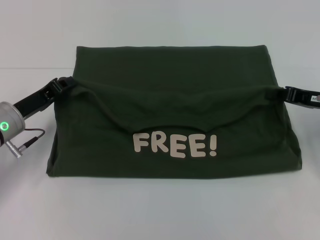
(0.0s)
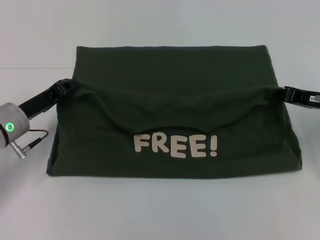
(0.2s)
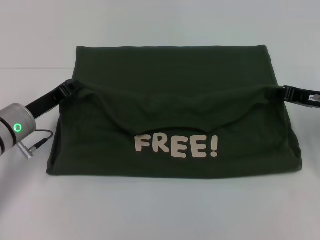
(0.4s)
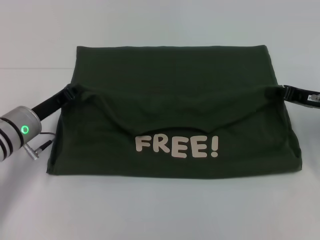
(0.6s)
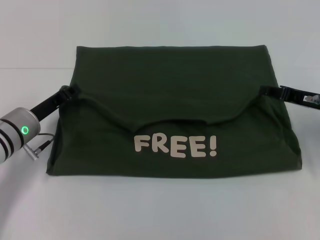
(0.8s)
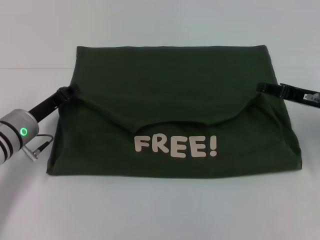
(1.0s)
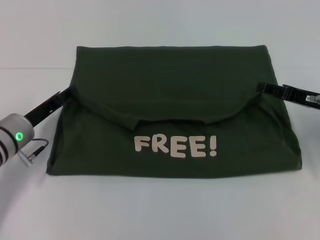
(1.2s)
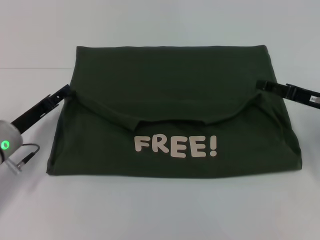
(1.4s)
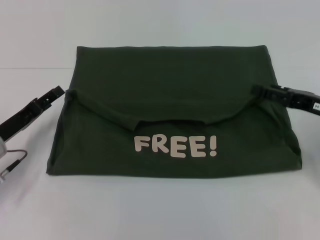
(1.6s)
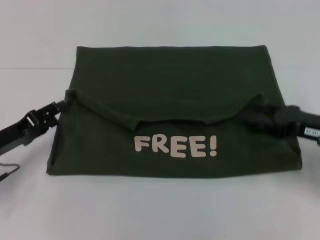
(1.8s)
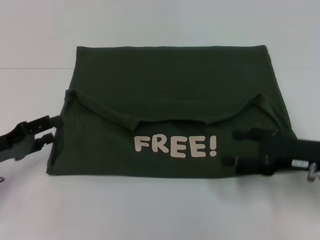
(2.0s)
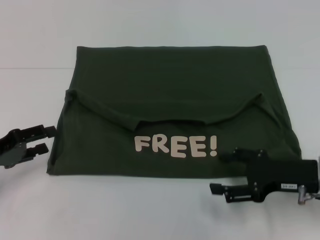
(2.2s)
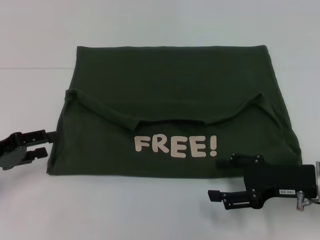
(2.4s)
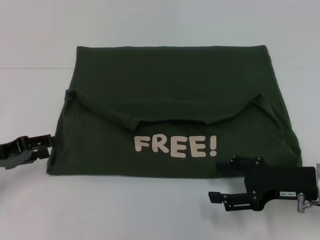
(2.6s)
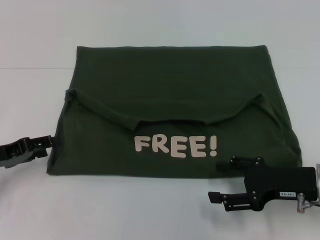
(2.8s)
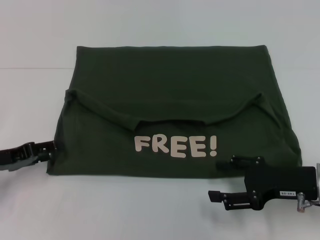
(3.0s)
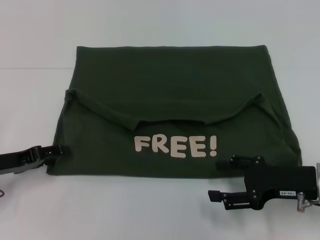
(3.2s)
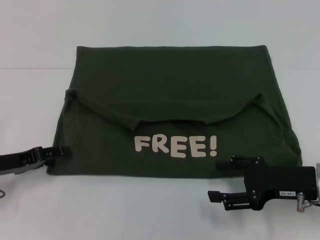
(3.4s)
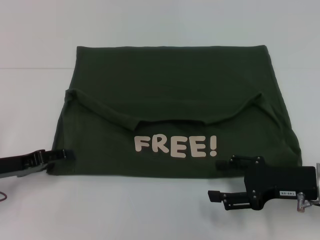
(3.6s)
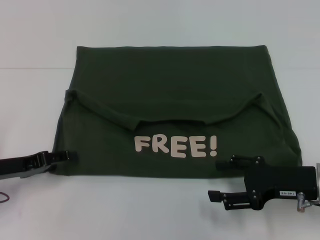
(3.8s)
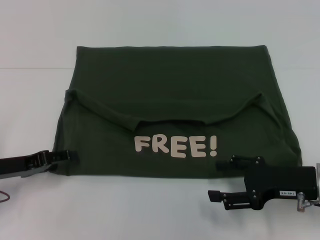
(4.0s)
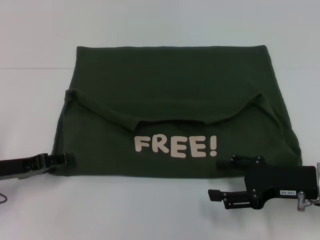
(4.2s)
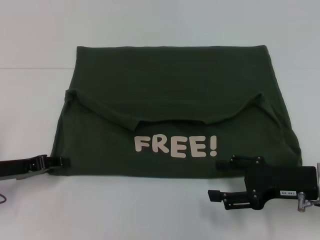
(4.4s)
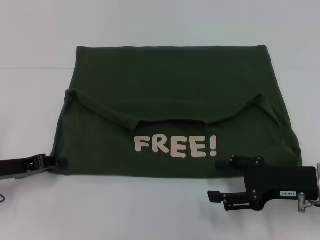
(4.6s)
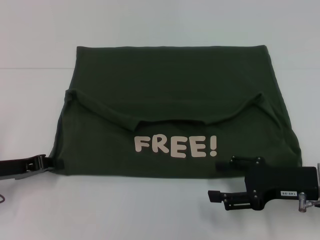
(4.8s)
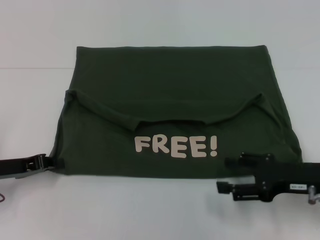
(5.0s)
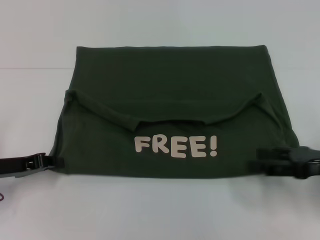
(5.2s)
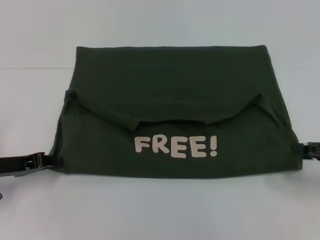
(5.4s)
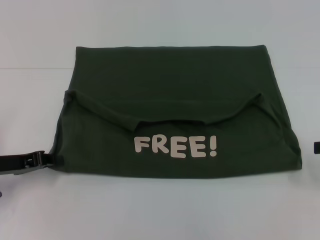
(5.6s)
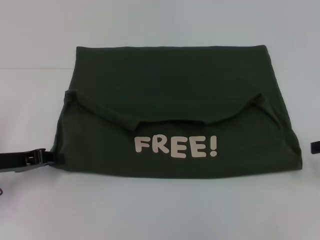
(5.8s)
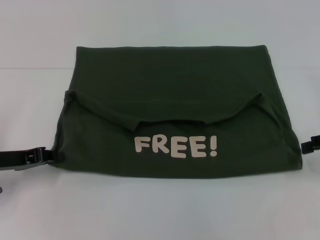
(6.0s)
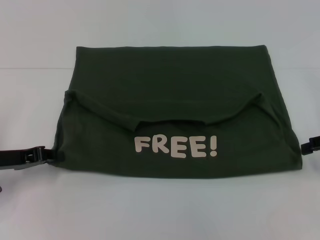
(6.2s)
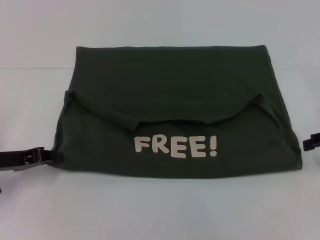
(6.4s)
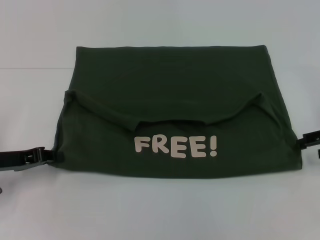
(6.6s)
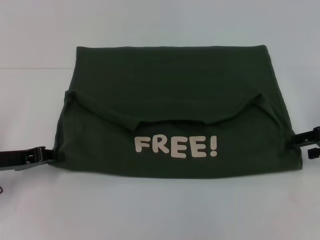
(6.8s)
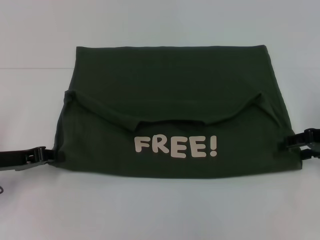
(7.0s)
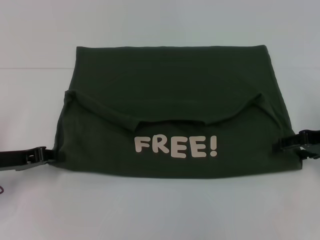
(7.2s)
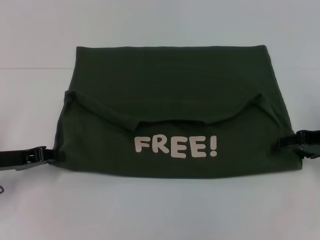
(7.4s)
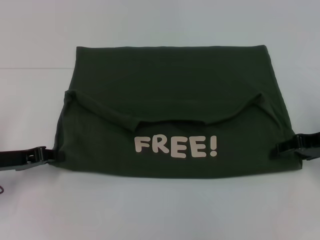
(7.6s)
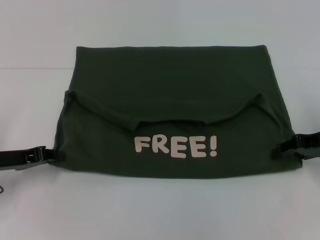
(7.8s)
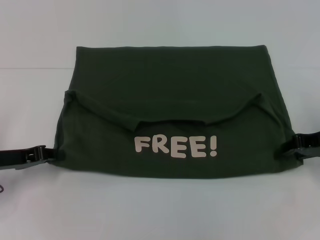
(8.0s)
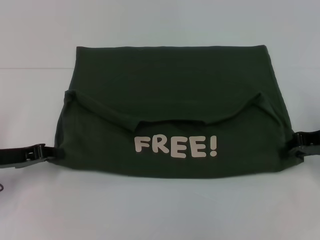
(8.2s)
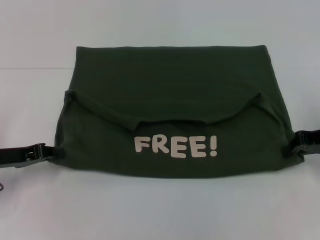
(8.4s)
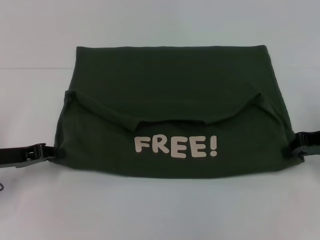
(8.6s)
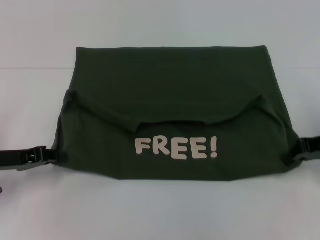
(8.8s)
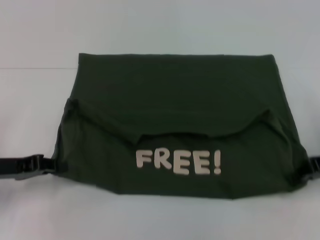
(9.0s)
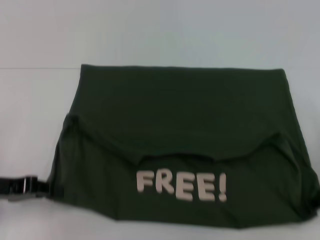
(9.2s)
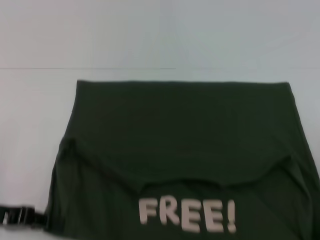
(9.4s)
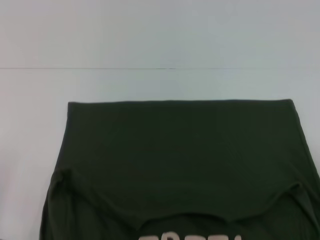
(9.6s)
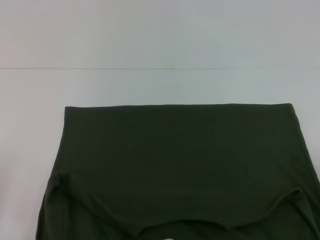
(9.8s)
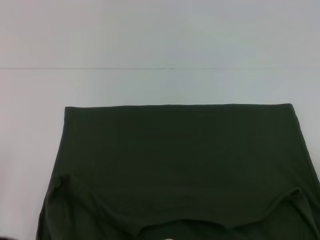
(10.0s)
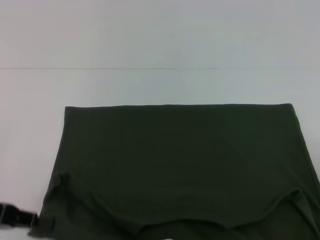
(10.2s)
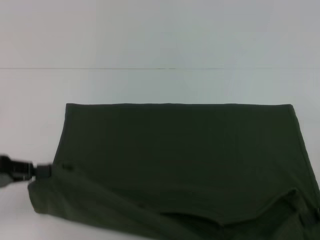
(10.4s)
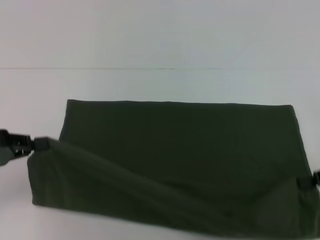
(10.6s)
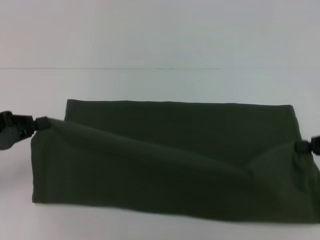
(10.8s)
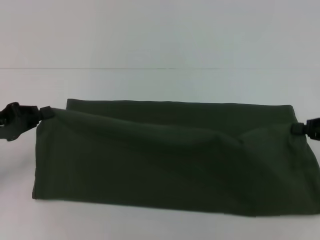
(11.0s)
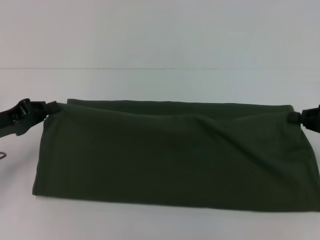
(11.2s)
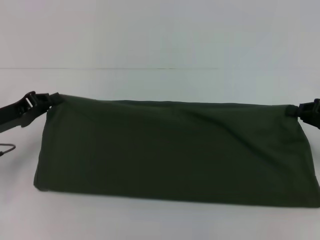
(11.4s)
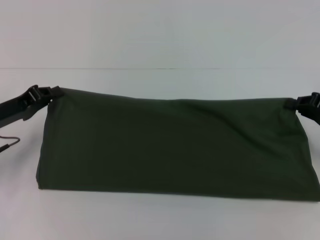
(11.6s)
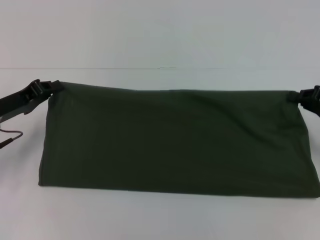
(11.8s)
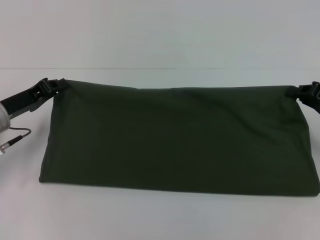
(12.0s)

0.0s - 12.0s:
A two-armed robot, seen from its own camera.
Step, 1.6s - 9.8s: Pull the clothes with your left hand.
Step, 1.6s - 9.8s: Pull the clothes with your right hand.
0.0s - 1.6s: The right gripper opens up; the left gripper opens up.
1.6s - 3.0s: The right gripper heads backward and to the left, covering roughly 10 cm. The left gripper ends up about 5 cm from where it was.
3.0s - 4.4s: The grippers make only small movements.
4.4s - 6.0s: The left gripper closes; the right gripper is displaced to the right, upward and forward by some 15 cm.
6.0s - 7.6s: The right gripper travels to the left by roughly 5 cm.
7.6s - 9.0s: The right gripper closes up.
9.0s - 10.4s: The right gripper heads backward, covering about 5 cm, while the left gripper shifts by about 5 cm.
10.4s - 12.0s: The left gripper is displaced forward and to the right by some 10 cm, while the right gripper goes some 10 cm forward.

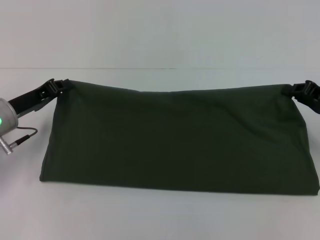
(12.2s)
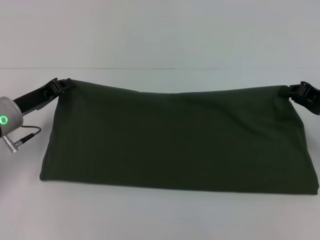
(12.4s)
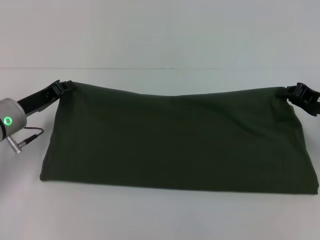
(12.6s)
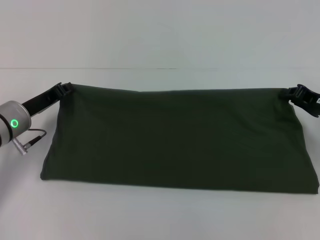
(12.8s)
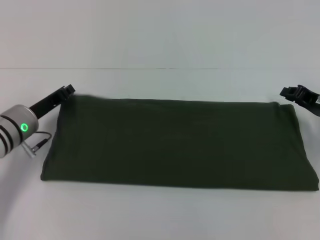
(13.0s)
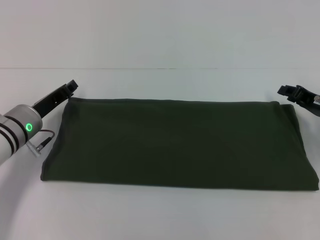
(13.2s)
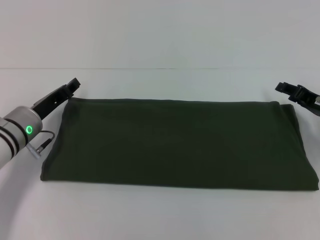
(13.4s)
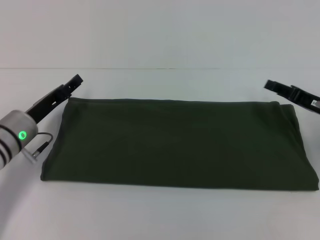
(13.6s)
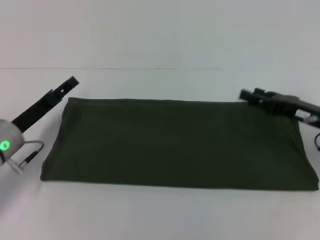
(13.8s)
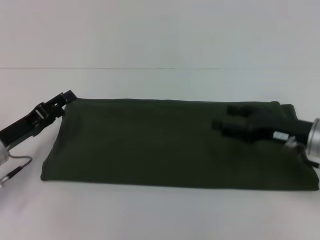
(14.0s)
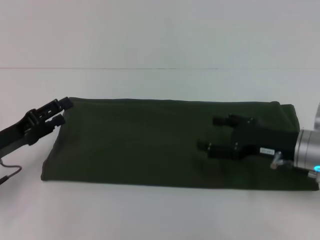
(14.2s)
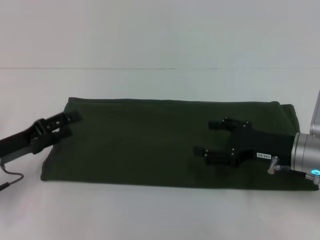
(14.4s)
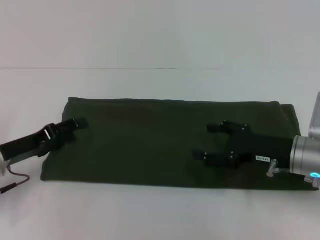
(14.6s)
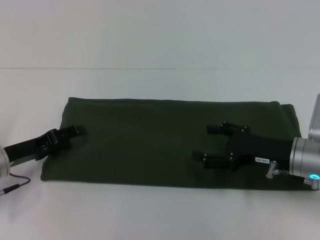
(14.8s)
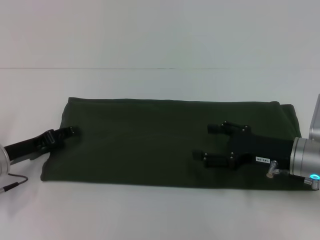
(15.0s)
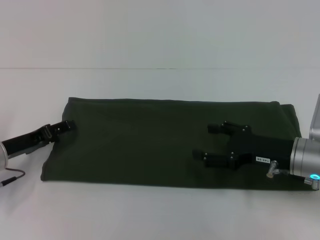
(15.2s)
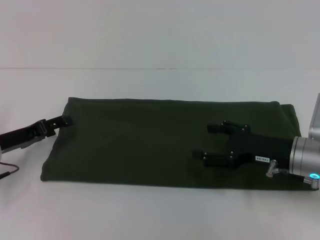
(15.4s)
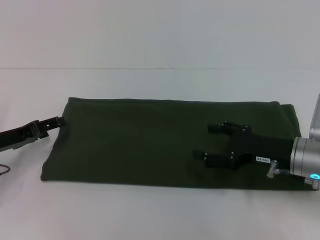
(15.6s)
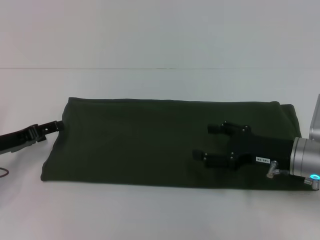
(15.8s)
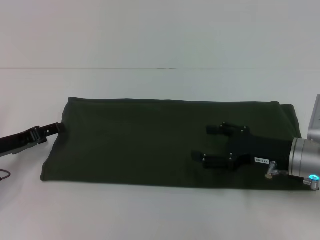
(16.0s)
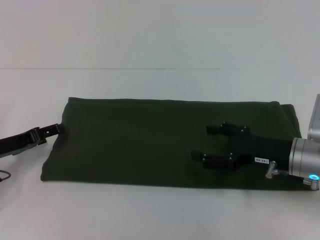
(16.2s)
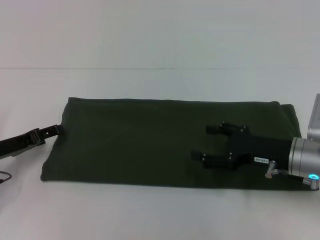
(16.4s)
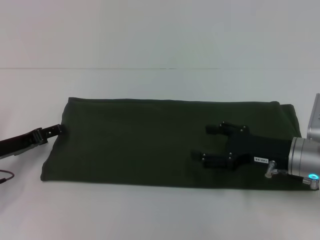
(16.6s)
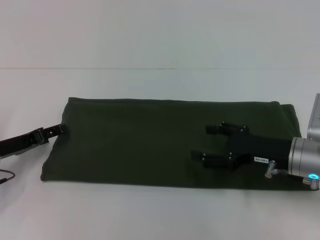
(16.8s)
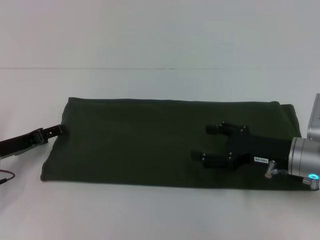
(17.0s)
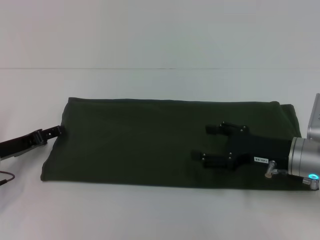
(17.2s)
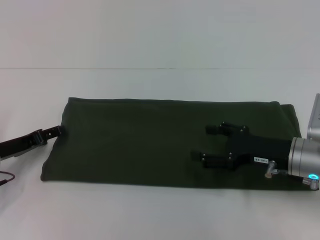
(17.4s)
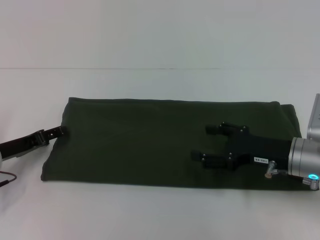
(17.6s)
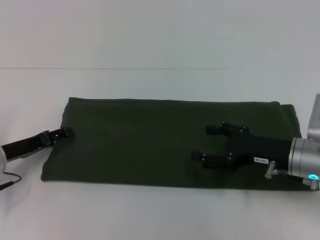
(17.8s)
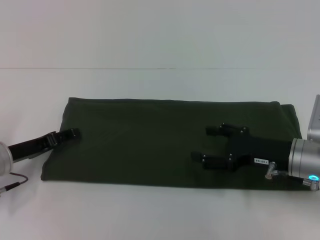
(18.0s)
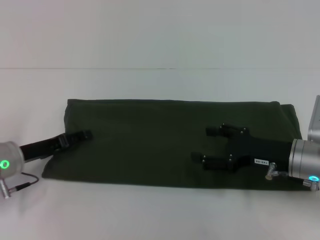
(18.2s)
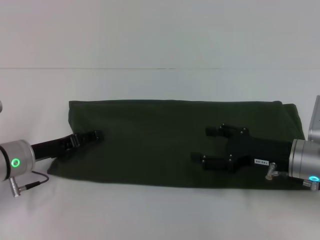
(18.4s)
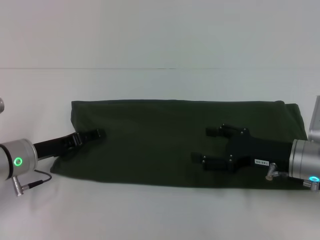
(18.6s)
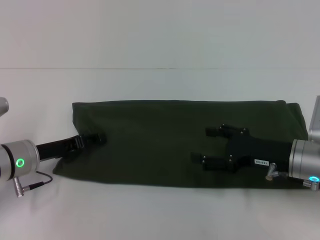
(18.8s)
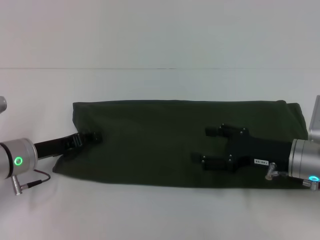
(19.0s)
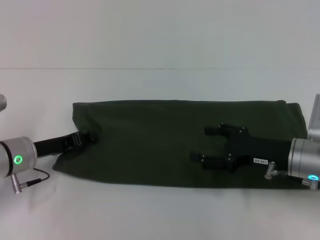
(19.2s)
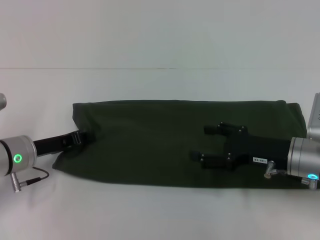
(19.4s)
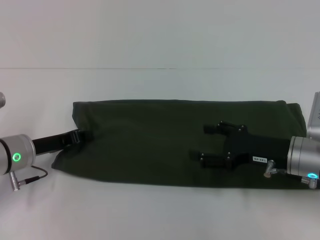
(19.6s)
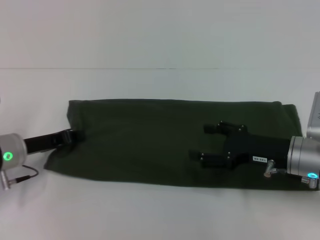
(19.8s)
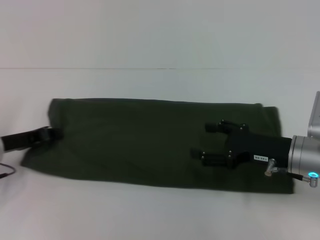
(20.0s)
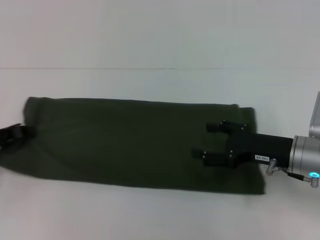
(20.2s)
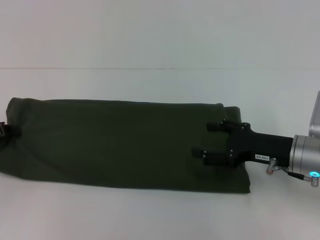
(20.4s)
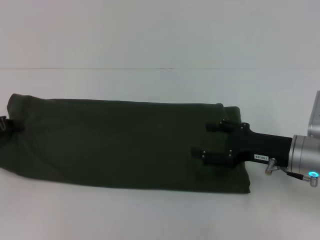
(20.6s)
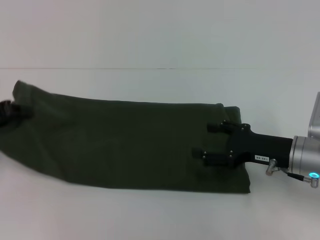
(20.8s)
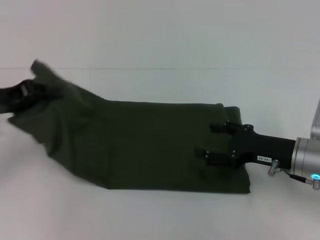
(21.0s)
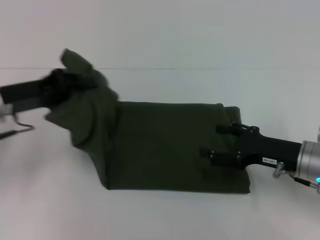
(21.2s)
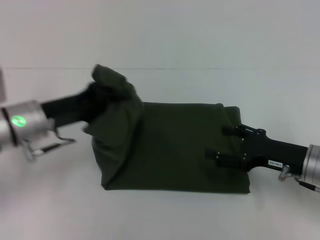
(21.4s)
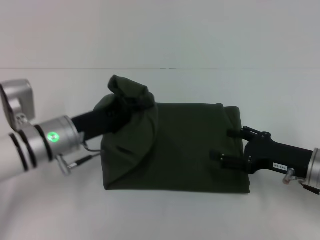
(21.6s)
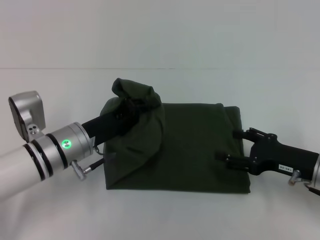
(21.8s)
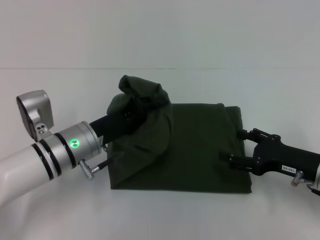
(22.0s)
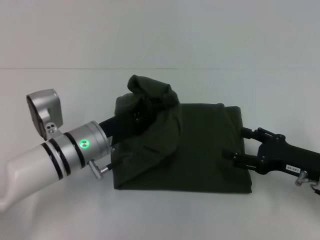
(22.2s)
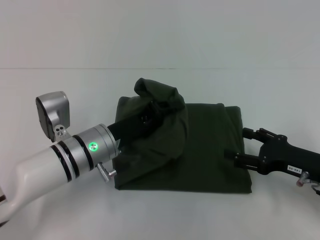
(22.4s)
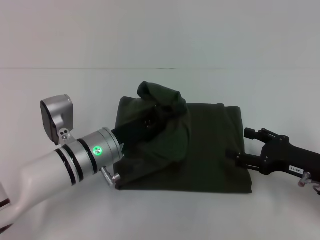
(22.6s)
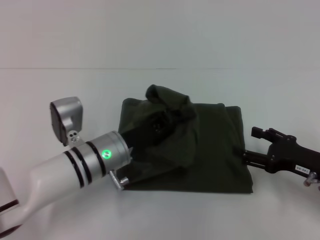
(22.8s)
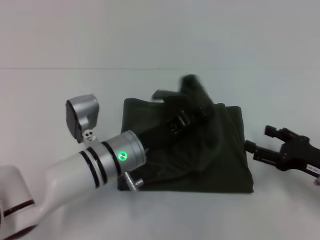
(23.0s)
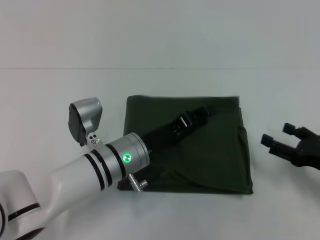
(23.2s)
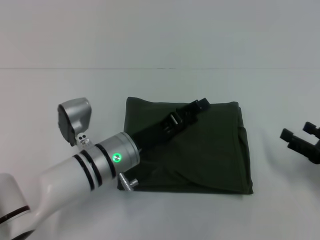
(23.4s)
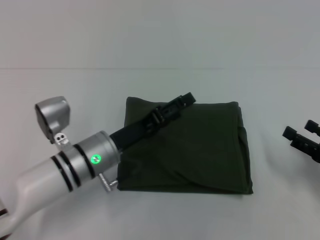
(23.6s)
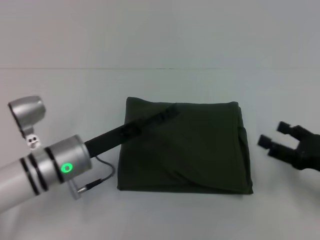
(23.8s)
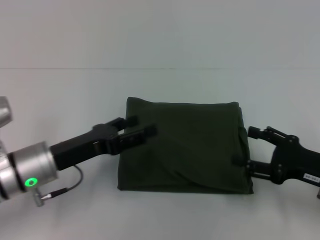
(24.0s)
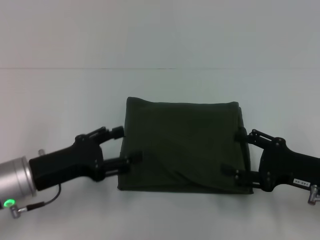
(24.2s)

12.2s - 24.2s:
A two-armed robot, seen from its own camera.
Step, 12.2s - 23.6s: Fold the clothes with your left hand.
12.2s - 13.8s: The right gripper heads to the left, covering some 5 cm, and opens up. Meanwhile the left gripper opens up.
13.8s - 15.2s: The right gripper shifts by approximately 5 cm, and opens its fingers.
15.2s - 18.2s: The grippers make only small movements.
18.2s - 19.8s: The left gripper closes its fingers.
19.8s - 21.2s: The left gripper is displaced upward by roughly 10 cm.
21.2s - 22.6s: The left gripper shifts approximately 15 cm to the right and downward.
22.6s - 24.2s: The left gripper moves to the left and backward, some 10 cm, and opens.
